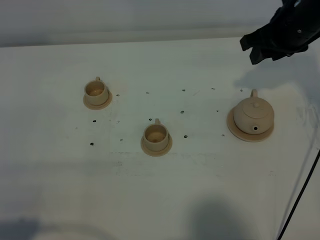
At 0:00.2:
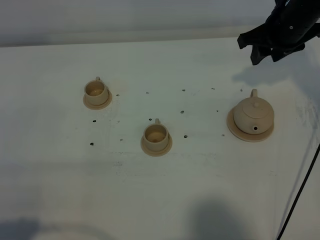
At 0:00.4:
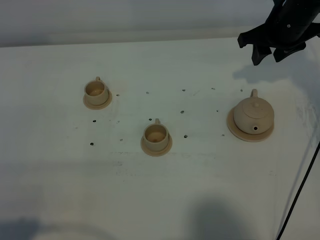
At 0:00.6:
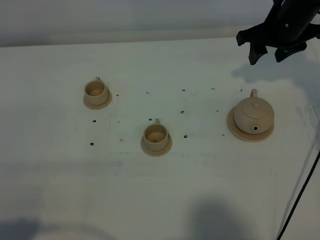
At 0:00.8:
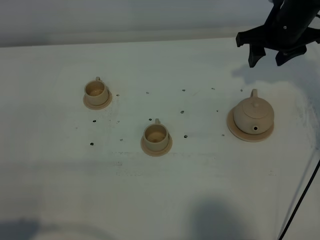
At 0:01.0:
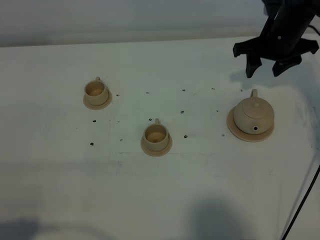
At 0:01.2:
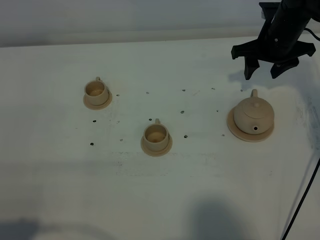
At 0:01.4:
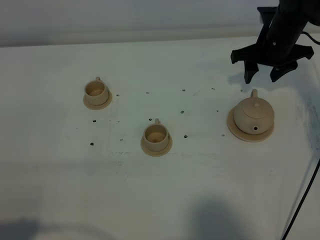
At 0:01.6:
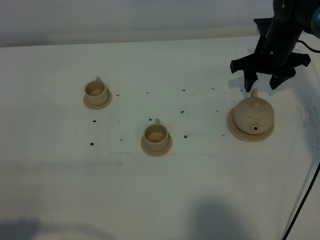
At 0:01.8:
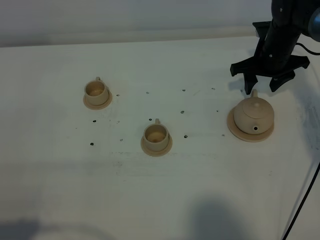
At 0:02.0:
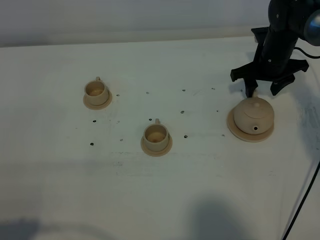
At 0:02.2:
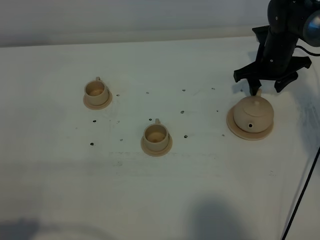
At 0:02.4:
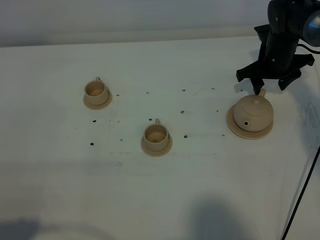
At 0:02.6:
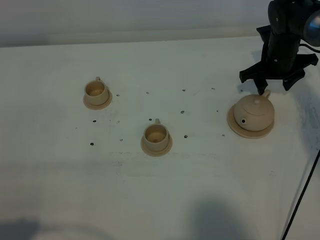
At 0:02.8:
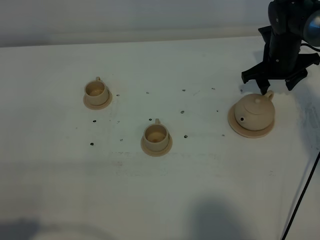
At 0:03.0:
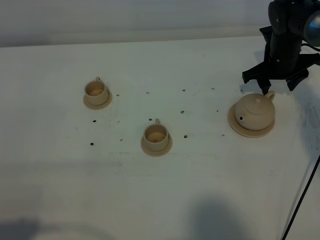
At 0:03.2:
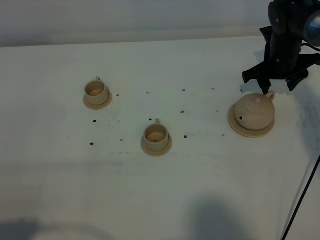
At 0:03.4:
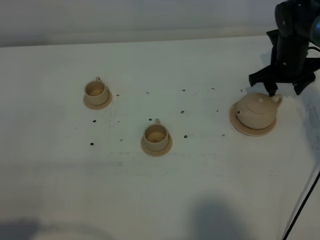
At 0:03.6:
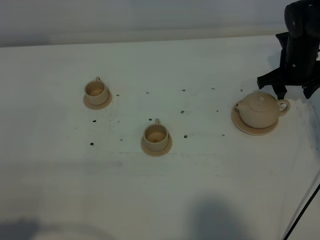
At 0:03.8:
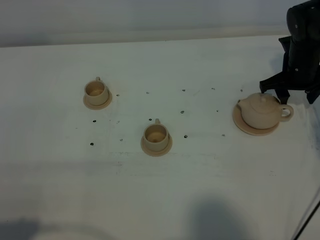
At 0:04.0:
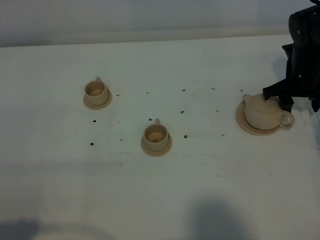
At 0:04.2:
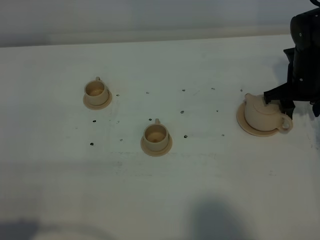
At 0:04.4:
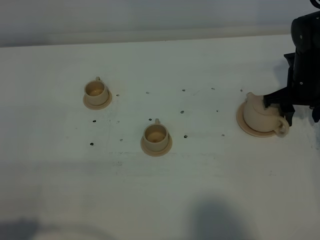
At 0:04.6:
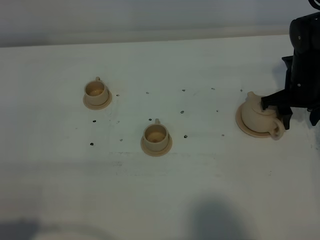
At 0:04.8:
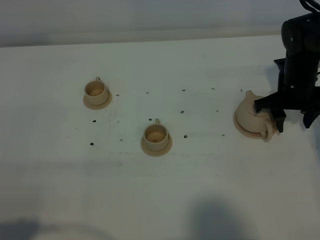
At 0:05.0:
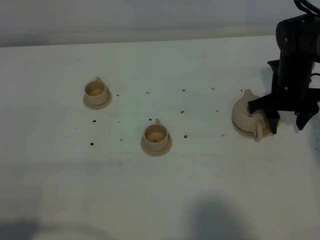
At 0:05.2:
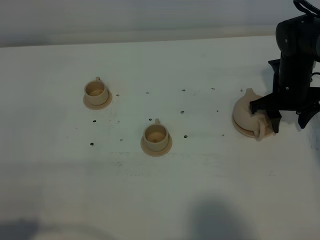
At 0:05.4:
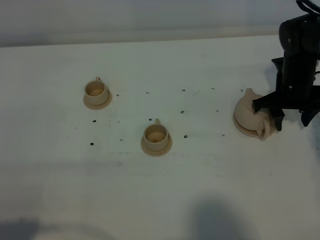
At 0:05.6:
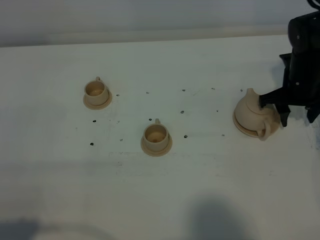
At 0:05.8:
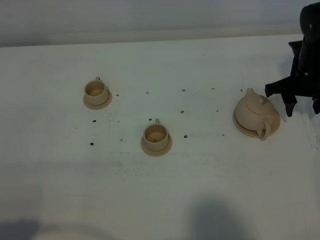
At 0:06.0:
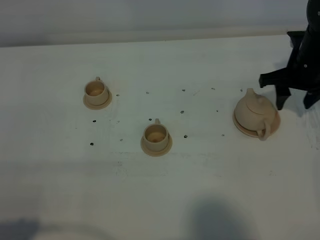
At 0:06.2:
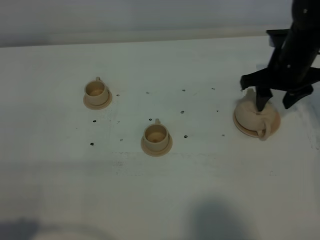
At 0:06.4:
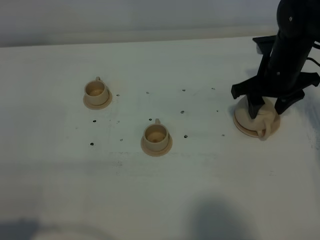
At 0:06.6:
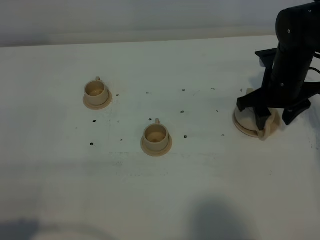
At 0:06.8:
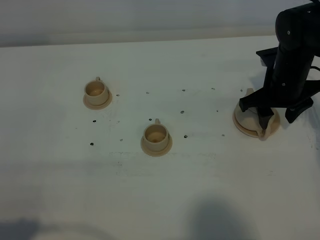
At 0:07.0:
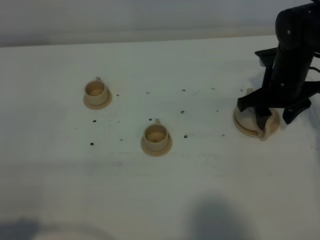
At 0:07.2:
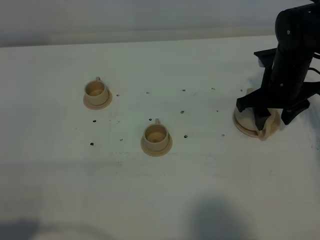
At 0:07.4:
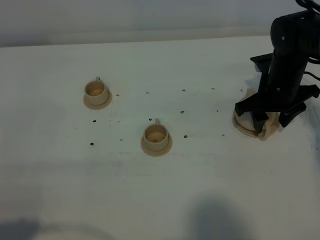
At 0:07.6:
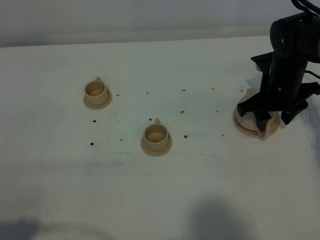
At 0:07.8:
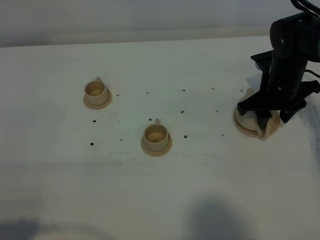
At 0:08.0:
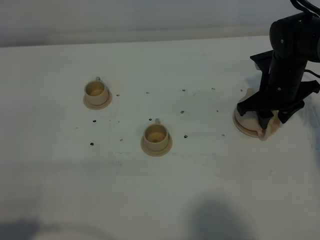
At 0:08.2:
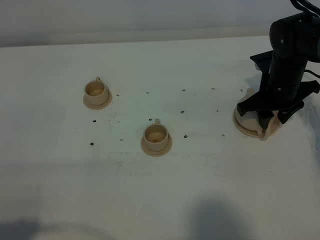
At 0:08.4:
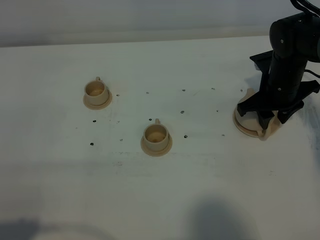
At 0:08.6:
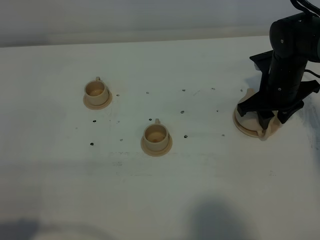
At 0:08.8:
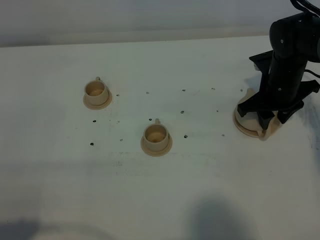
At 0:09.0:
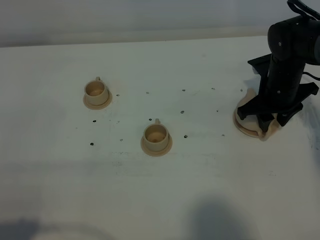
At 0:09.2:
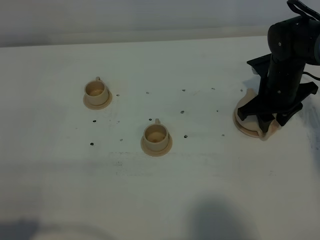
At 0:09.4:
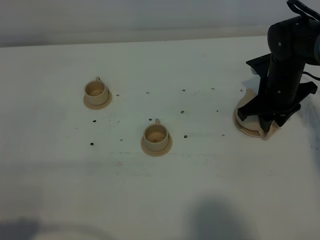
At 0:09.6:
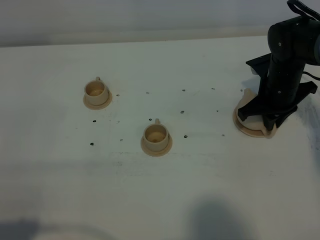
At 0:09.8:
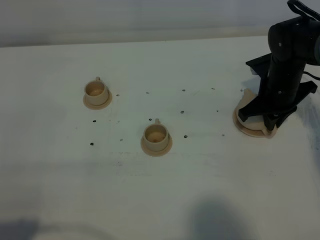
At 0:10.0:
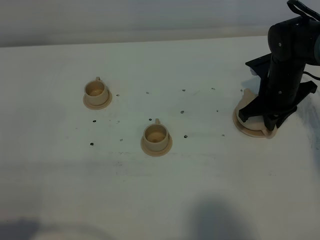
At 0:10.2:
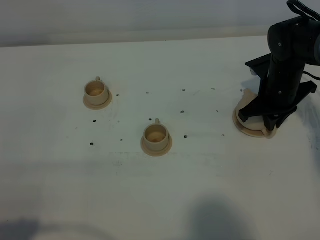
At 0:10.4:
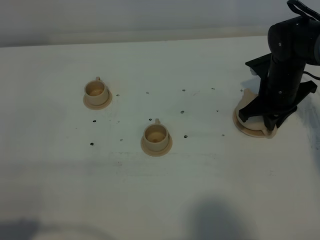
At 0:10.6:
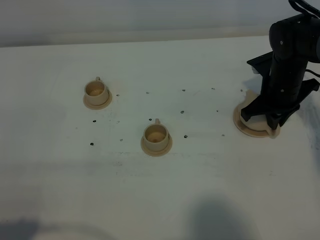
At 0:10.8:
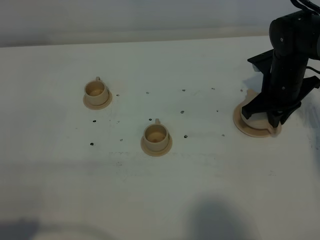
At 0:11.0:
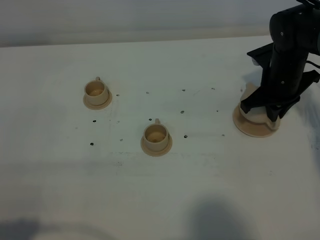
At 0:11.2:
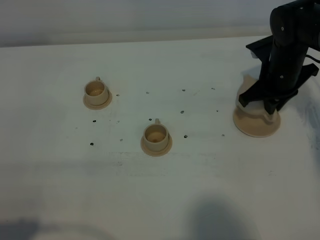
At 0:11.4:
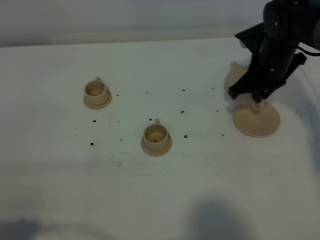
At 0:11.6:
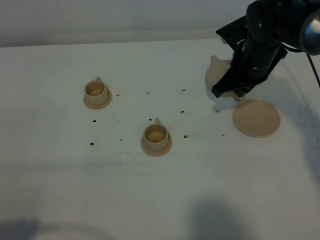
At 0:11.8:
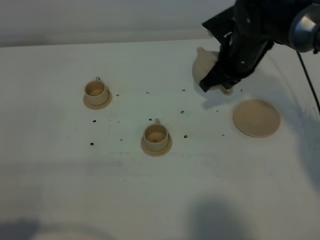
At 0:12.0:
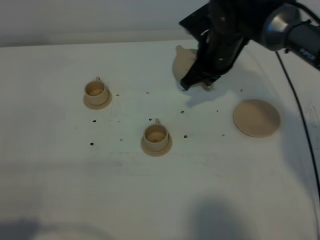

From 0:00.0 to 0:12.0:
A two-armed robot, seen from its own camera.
Task of the whole recording: grasp the brown teapot and pour the tea into the two brown teacups one by one, put the brown teapot back in its original place.
Step, from 0:00.0 to 0:11.0: Pick up the teapot with the right gripper.
From 0:00.0 to 0:01.6: The right gripper heads downward and forward, covering approximately 10 cm.
From 0:01.6 to 0:03.0: The grippers move only a little.
From 0:03.0 to 0:04.4: The right gripper moves backward, some 5 cm.
From 0:04.4 to 0:06.0: The right gripper shifts roughly 5 cm upward.
From 0:06.0 to 0:07.6: The right gripper shifts by approximately 5 cm.
From 0:07.6 to 0:09.0: Both grippers stay put.
From 0:09.0 to 0:10.4: The right gripper closes up.
From 0:10.4 to 0:12.0: The right gripper heads to the left and upward, covering roughly 15 cm.

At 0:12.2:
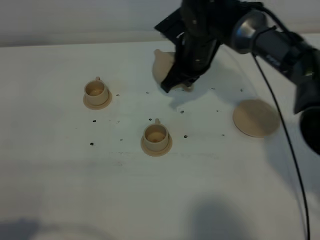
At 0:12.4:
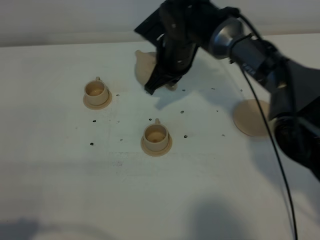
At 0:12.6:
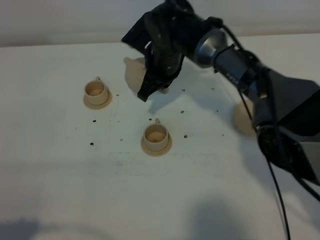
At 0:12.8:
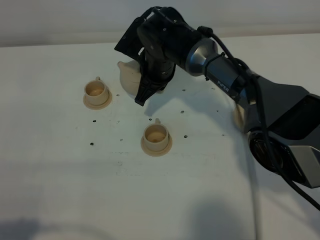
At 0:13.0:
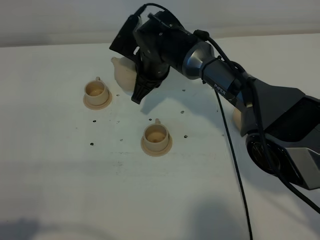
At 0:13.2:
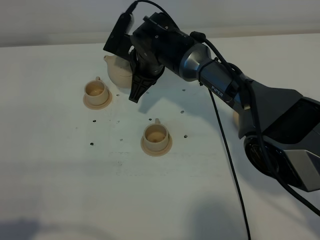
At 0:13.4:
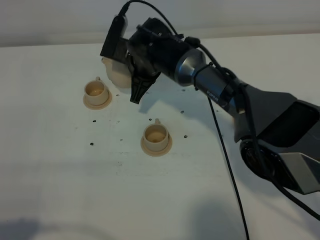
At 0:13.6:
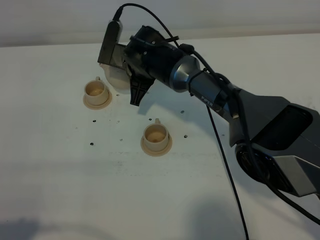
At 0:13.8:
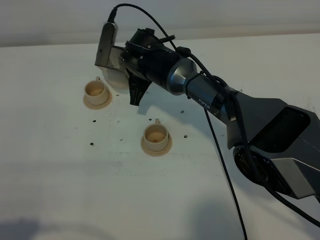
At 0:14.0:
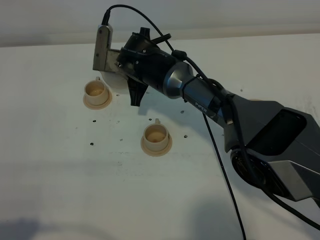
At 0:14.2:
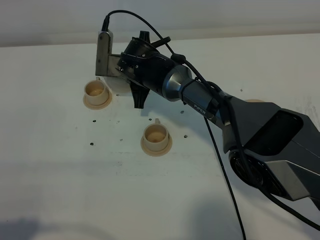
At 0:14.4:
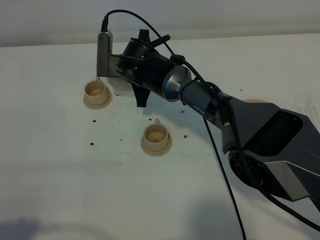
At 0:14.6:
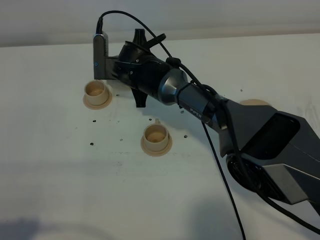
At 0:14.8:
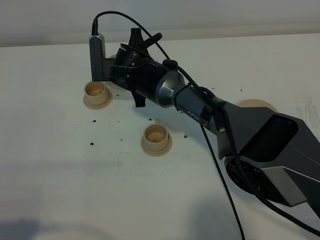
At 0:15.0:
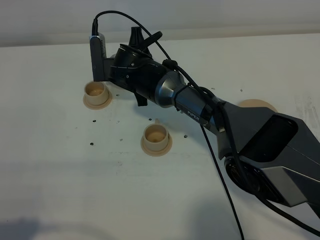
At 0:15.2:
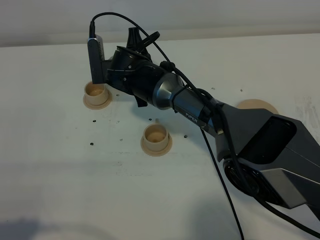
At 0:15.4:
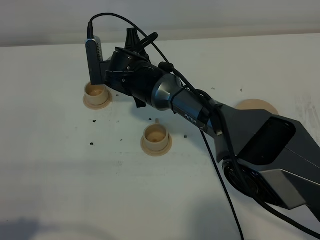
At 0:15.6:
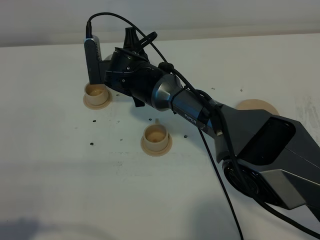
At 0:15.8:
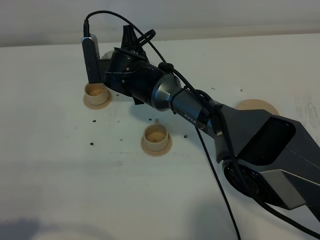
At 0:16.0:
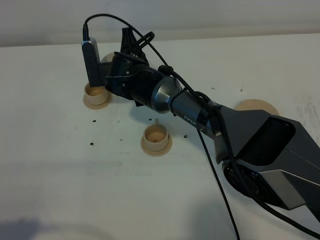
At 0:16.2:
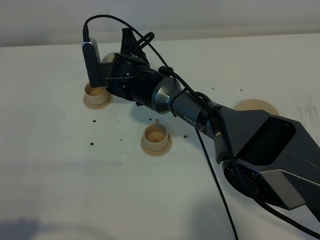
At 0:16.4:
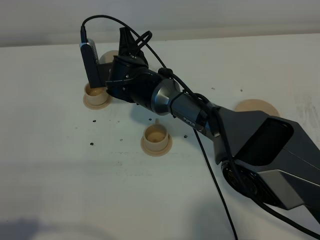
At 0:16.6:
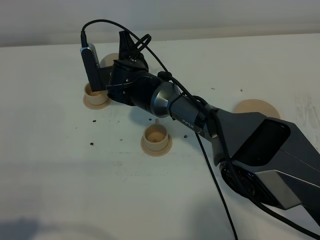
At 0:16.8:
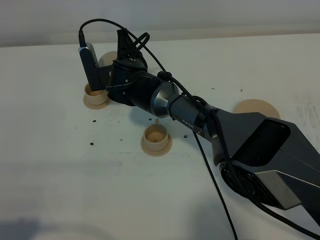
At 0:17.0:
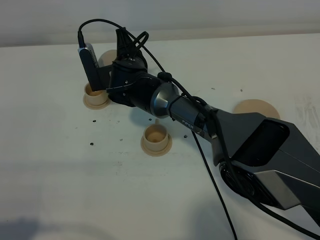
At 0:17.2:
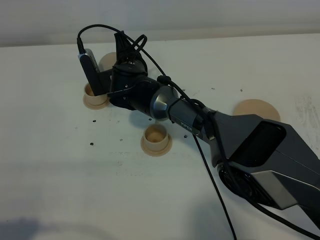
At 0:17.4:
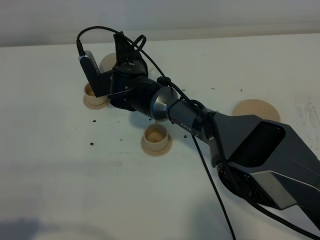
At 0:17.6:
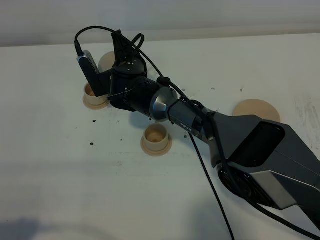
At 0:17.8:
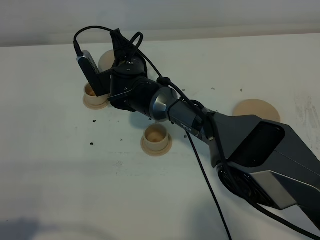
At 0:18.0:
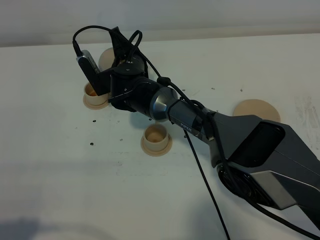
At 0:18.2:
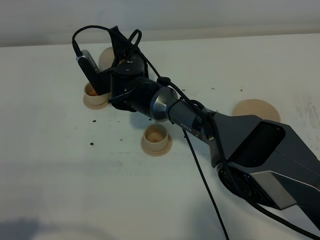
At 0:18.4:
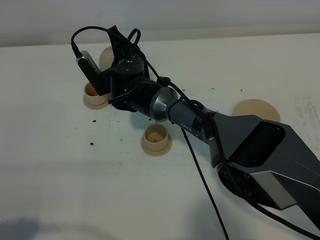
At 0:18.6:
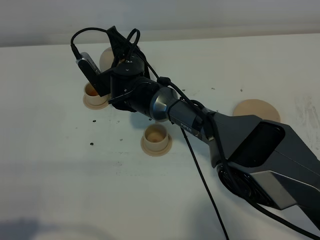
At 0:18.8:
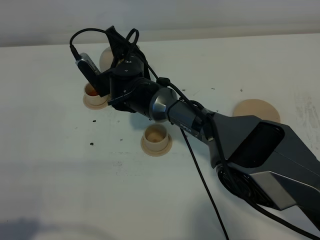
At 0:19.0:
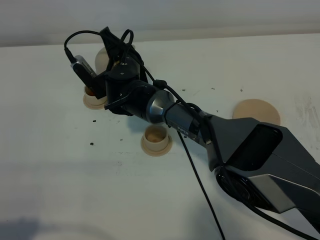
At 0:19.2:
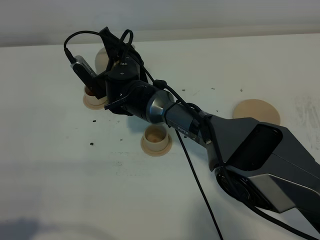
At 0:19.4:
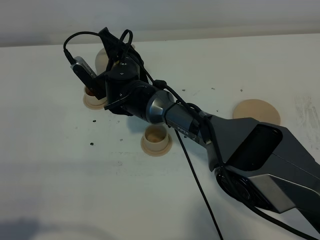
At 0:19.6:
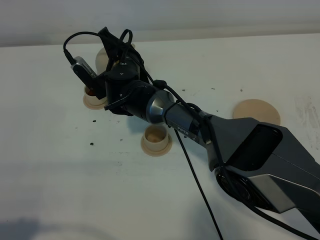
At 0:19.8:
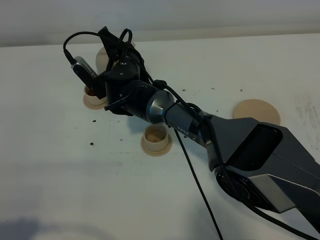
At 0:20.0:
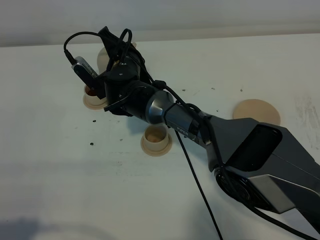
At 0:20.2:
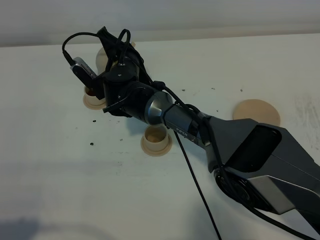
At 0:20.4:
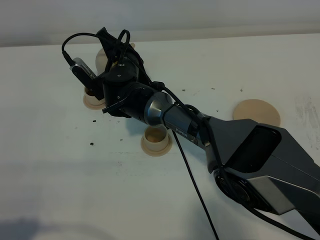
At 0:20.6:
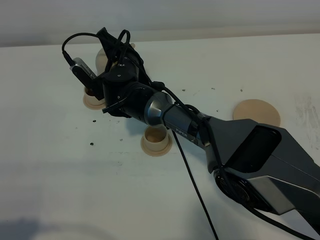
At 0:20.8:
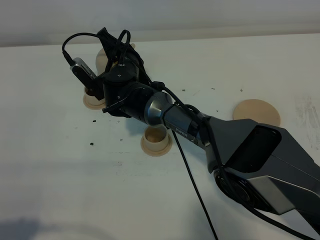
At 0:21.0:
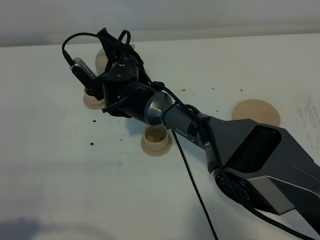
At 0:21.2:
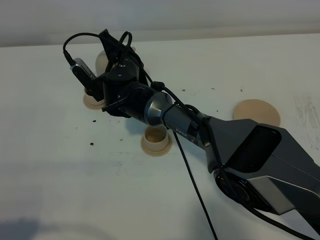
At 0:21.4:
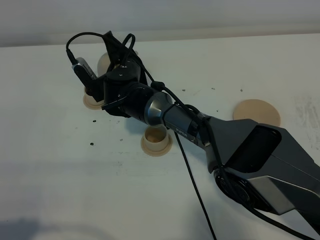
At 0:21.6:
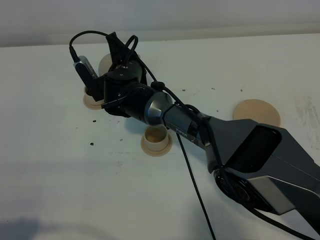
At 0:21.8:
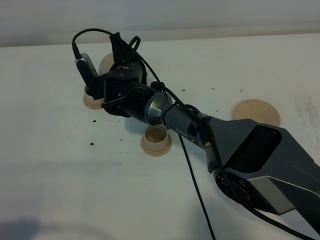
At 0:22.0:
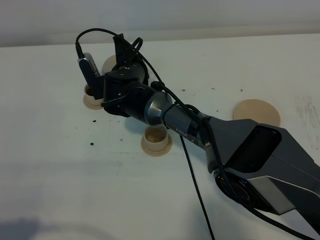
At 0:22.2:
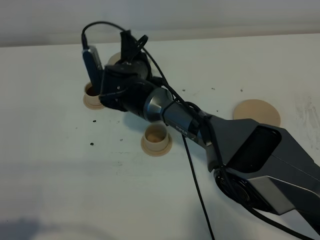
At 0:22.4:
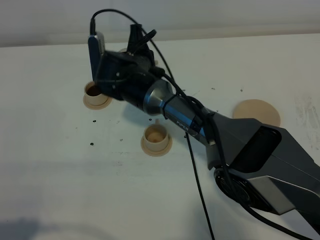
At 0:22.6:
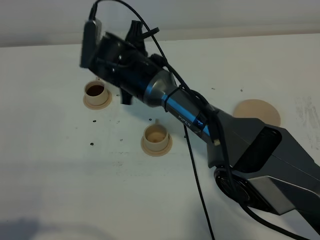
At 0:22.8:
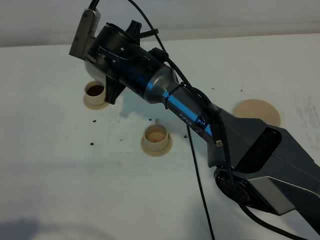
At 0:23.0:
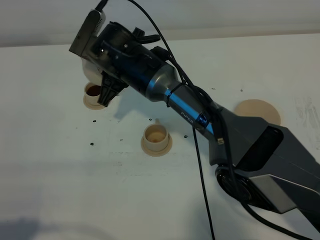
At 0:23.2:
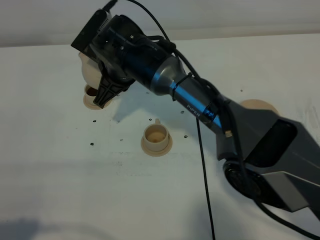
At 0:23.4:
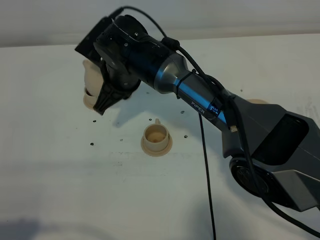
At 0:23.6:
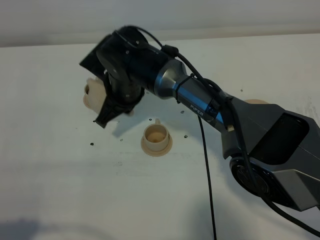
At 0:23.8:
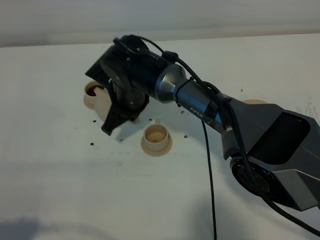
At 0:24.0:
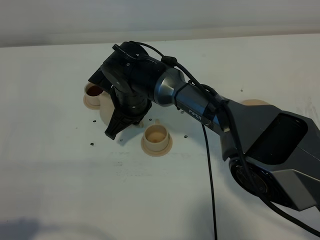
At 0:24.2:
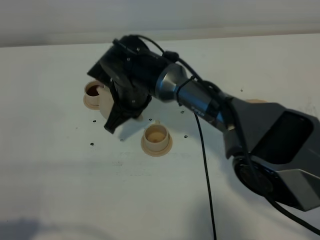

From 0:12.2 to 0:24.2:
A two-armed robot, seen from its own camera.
Task of the whole recording: grasp the brown teapot and pour the tea into the two brown teacups one by one, put the brown teapot back in its original place.
Step, from 0:12.2 to 0:22.0: Pour tea into the teacup with the right gripper.
From 0:12.2 to 0:13.8: The right gripper shifts some 10 cm to the left.
From 0:15.2 to 0:16.6: The grippers stay close to where they were, moving slightly.
From 0:16.6 to 0:18.2: The grippers move only a little.
From 0:18.2 to 0:19.8: There are only small adjustments of the grippers.
From 0:19.8 to 0:21.2: The two grippers keep their place.
From 0:21.2 to 0:22.6: The right gripper goes approximately 5 cm upward.
